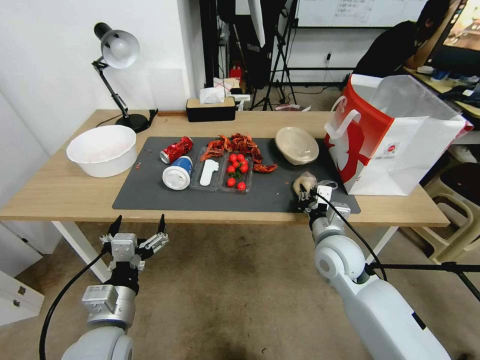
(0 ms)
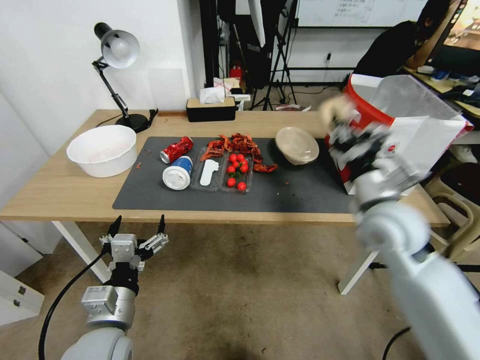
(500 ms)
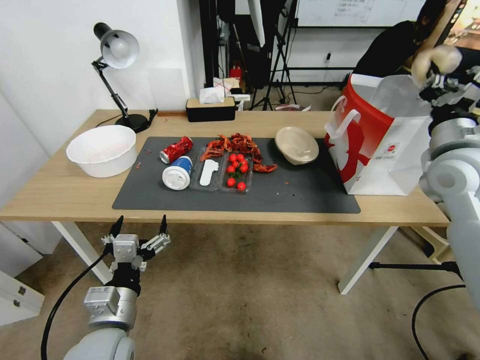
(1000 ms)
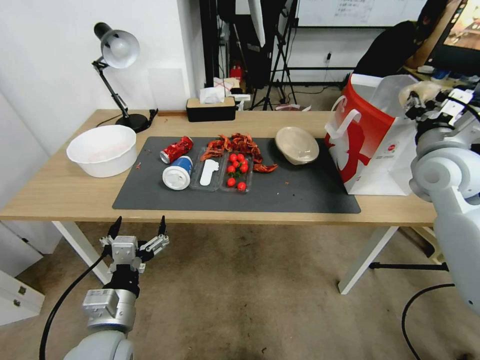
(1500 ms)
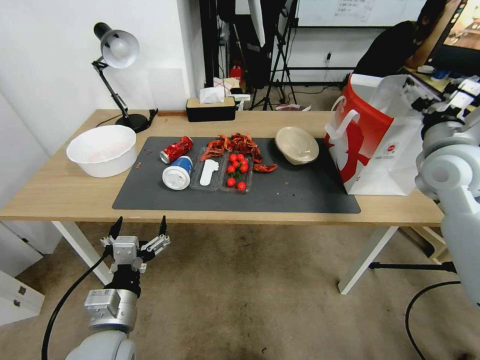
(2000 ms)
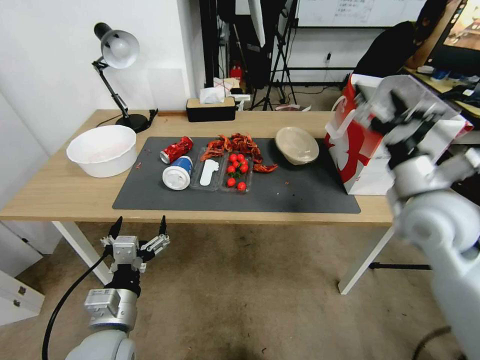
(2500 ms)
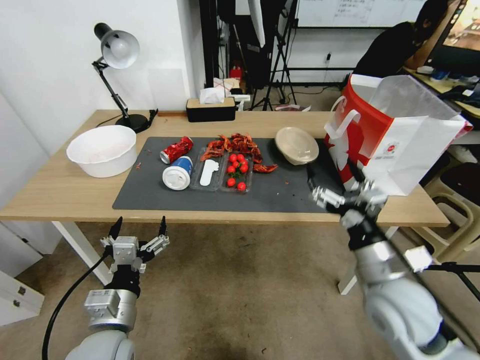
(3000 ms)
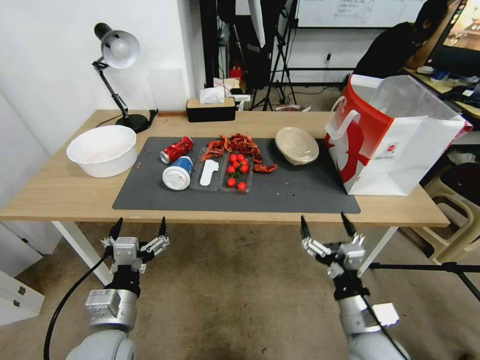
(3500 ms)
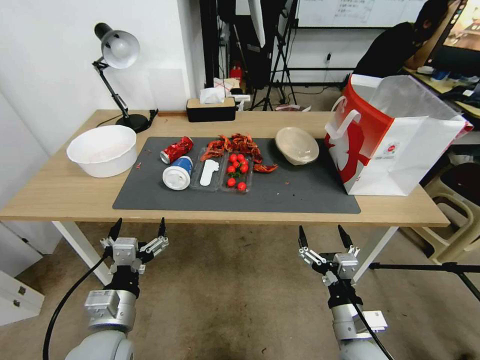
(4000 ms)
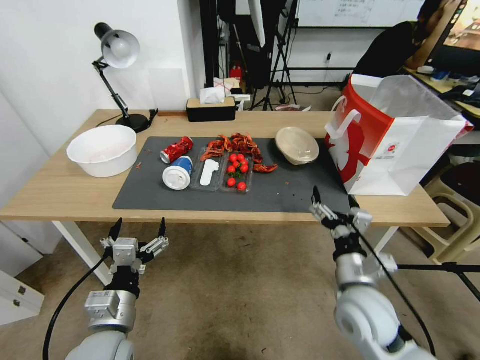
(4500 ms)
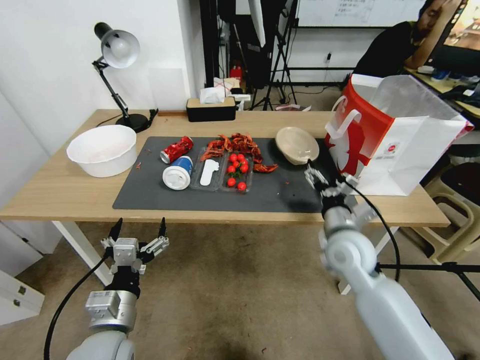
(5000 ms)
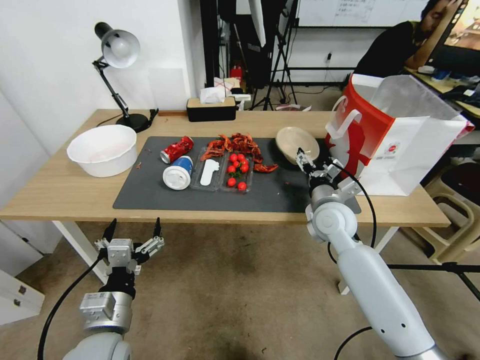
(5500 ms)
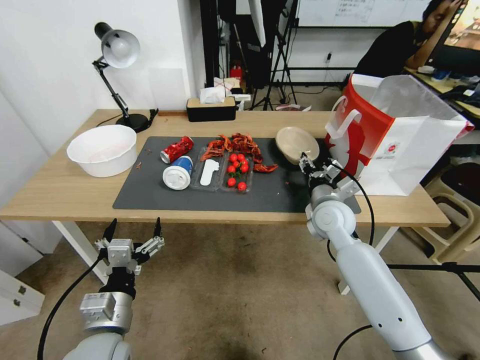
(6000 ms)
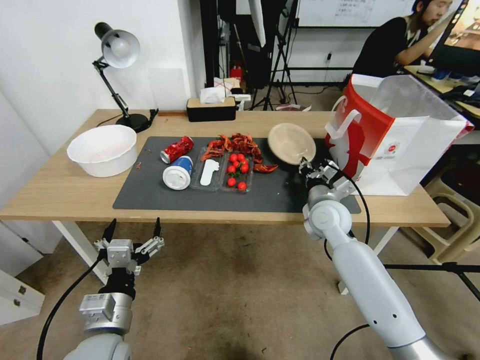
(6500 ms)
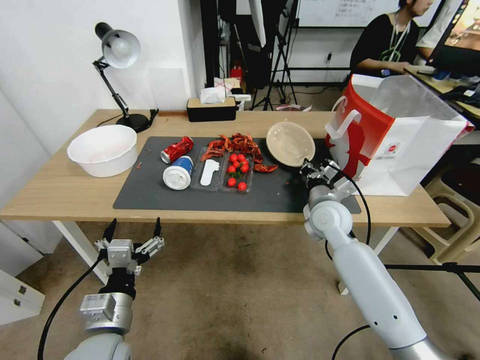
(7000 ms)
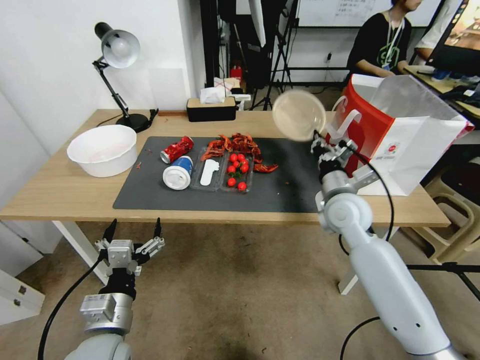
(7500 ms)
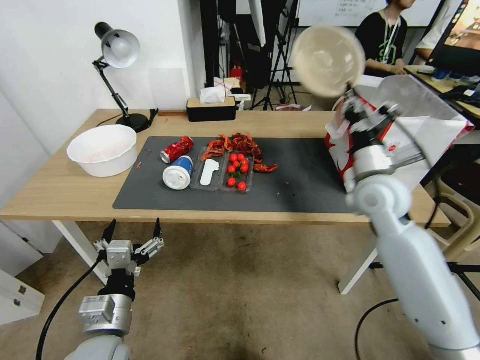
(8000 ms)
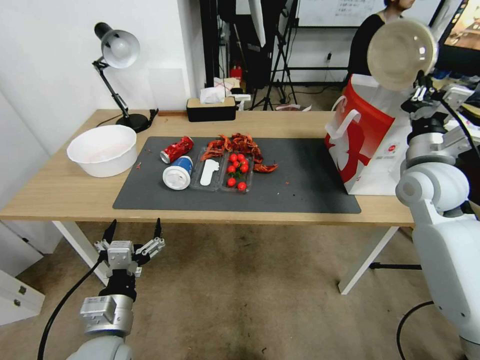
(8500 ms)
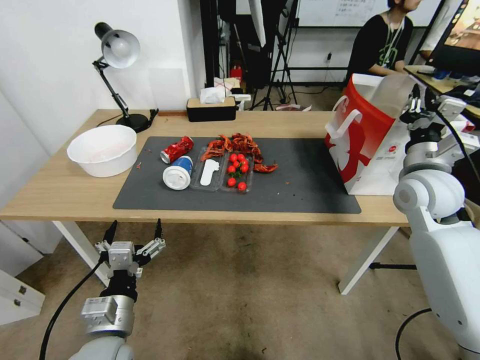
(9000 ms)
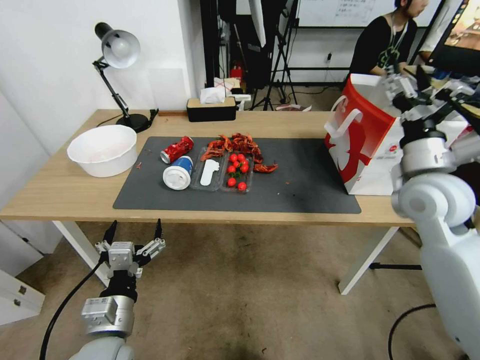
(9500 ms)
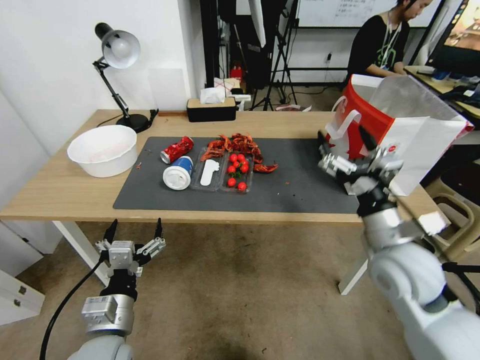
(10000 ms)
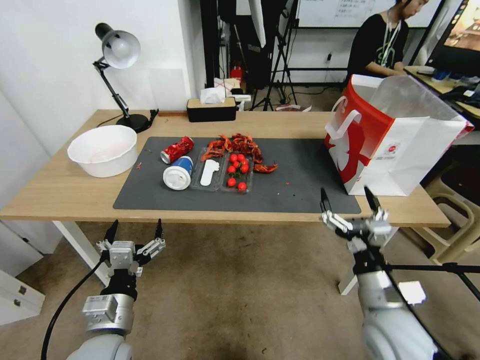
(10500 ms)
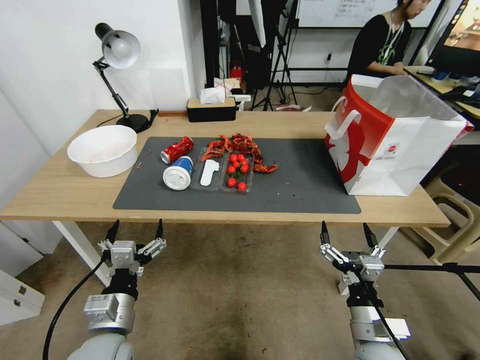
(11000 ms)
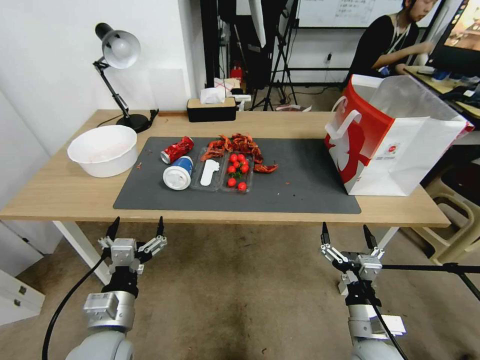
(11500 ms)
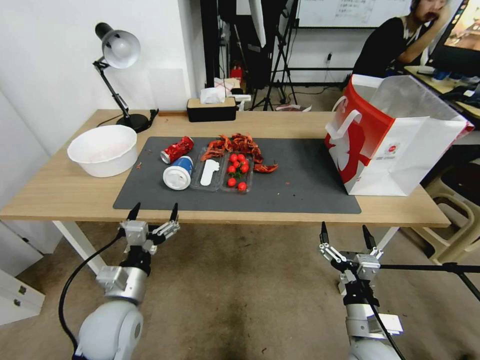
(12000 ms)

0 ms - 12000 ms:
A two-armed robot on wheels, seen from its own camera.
0 ms - 2000 ms: The right gripper travels upward and to the right by some 25 cm, and opens its fingers.
2000 ms - 4000 ms: The right gripper is displaced downward, backward and to the left by approximately 40 cm.
4000 ms - 6000 ms: The right gripper is displaced forward by about 25 cm, and closes its fingers.
6000 ms - 8000 ms: The right gripper shifts about 15 cm upward and to the right, and closes.
8000 ms - 10000 ms: The right gripper shifts some 15 cm backward, and opens up.
10000 ms - 12000 ms: The left gripper shifts roughly 5 cm forward; the right gripper heads downward and backward, covering about 20 cm.

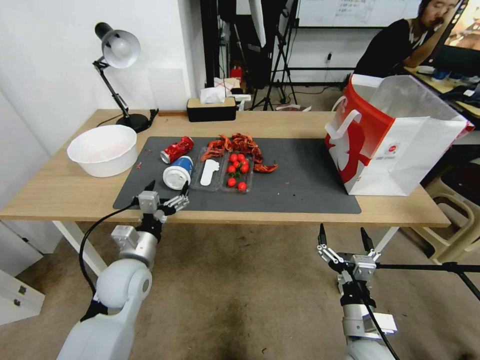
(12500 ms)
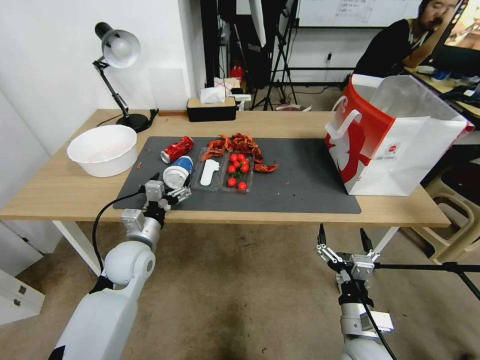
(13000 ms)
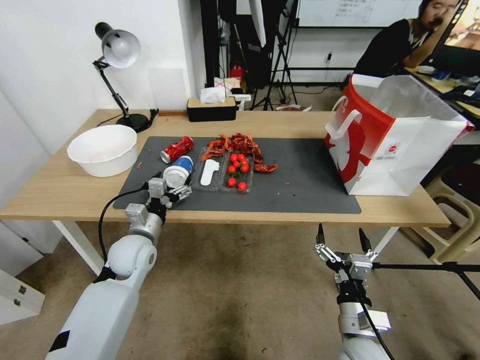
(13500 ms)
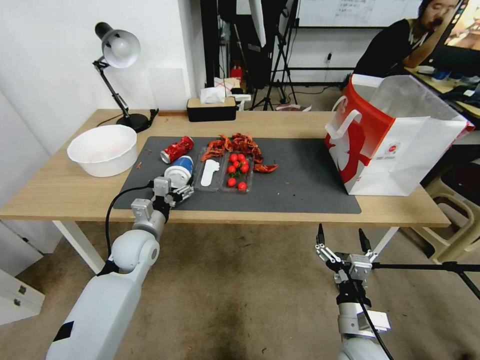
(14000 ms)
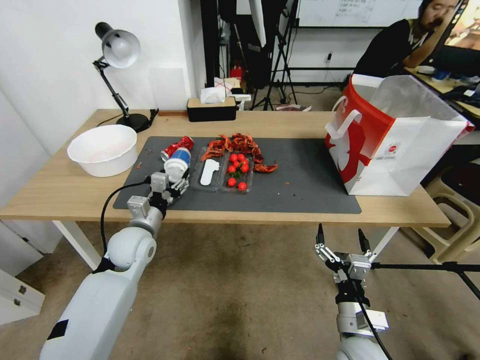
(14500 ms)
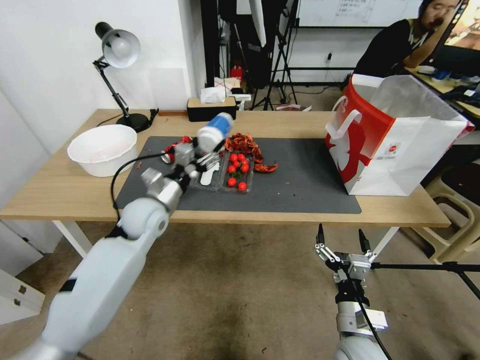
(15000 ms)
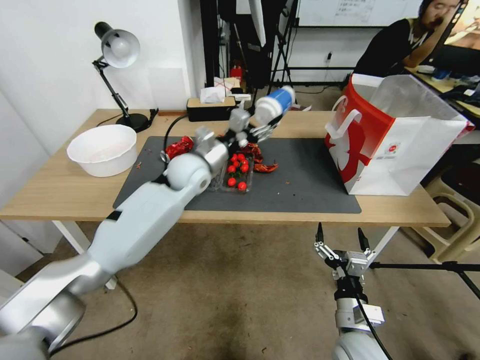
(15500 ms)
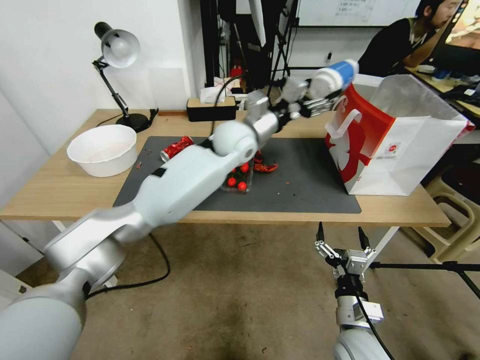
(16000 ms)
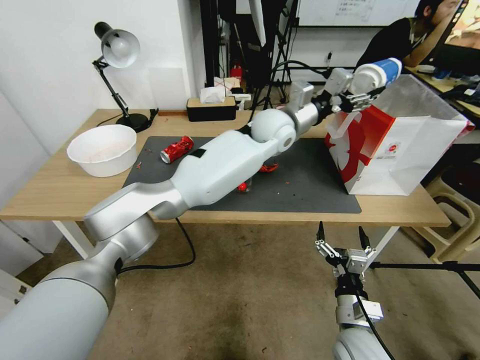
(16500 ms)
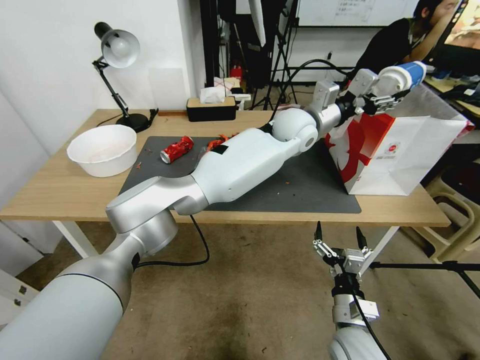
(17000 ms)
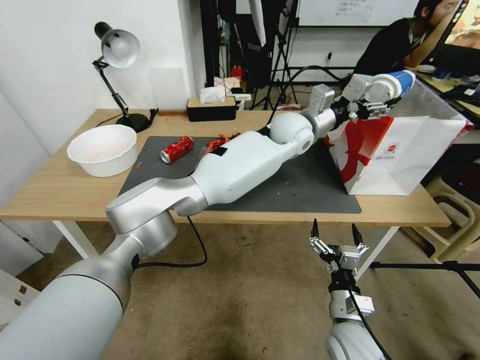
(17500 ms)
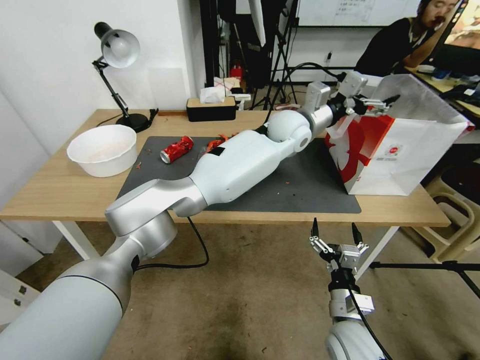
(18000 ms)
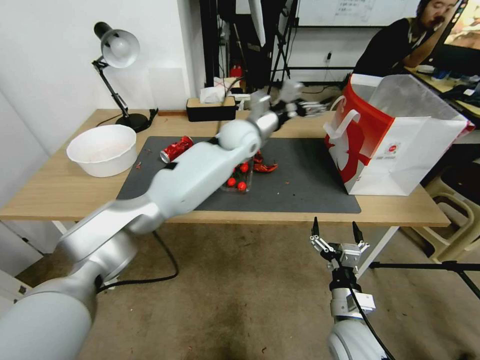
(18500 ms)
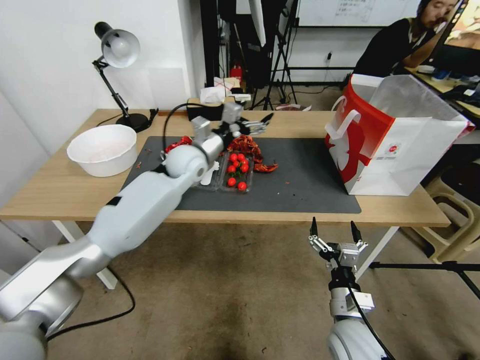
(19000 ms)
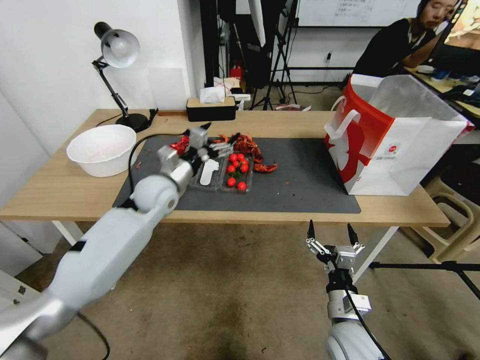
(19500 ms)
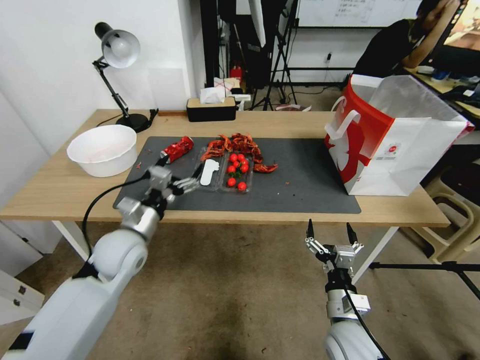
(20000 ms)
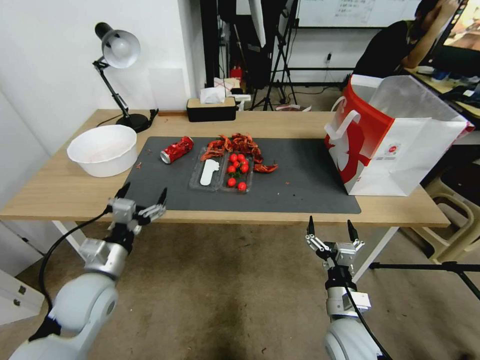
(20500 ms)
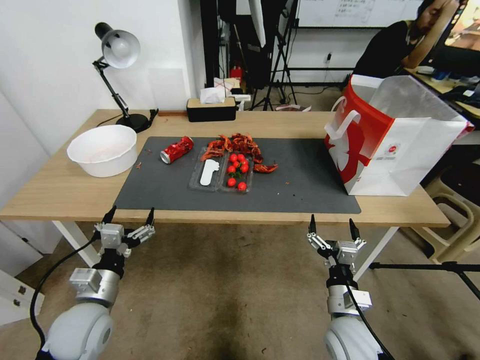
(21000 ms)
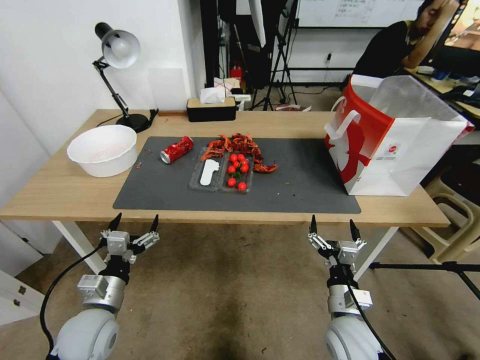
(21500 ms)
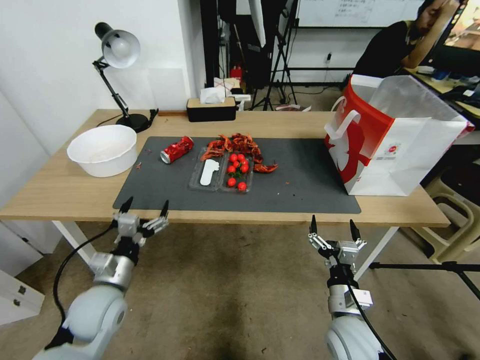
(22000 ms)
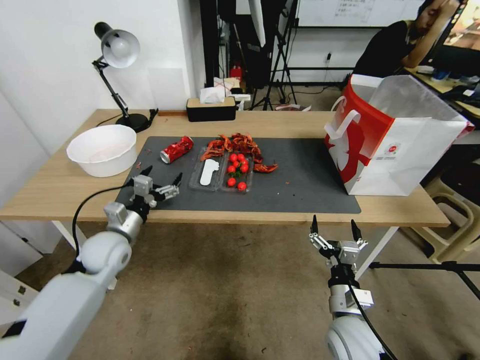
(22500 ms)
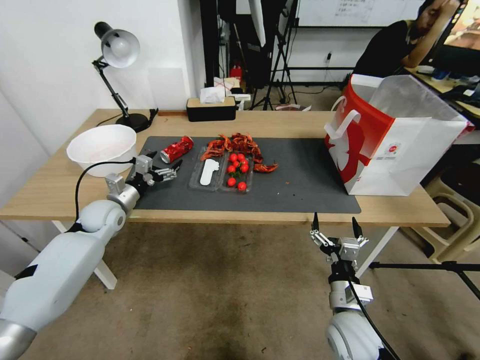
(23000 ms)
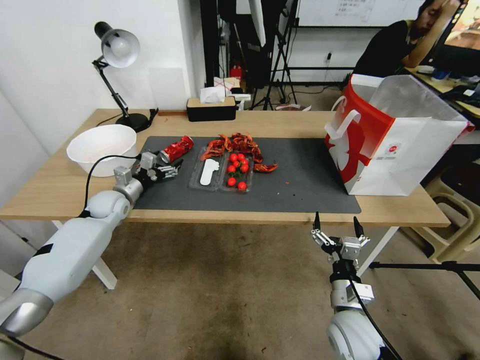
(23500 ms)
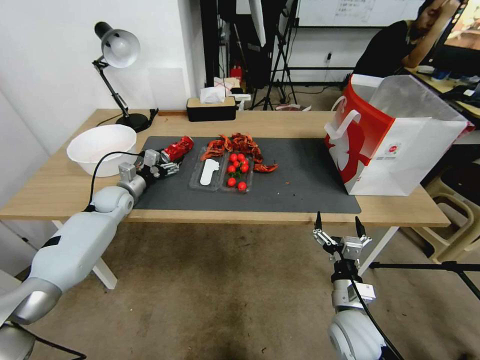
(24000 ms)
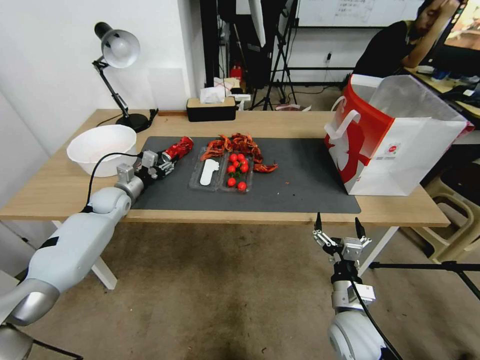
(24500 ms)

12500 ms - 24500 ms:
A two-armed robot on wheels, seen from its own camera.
12500 ms - 14500 ms: The left gripper moves forward, approximately 10 cm, and closes its fingers.
14500 ms - 16500 ms: The left gripper is displaced to the right, upward and forward by approximately 40 cm.
16500 ms - 18500 ms: The left gripper shifts about 5 cm to the left, and opens its fingers.
18500 ms - 20500 ms: The left gripper is displaced backward, to the left and downward by approximately 50 cm.
22500 ms - 24500 ms: The left gripper is displaced forward by roughly 25 cm, and closes.

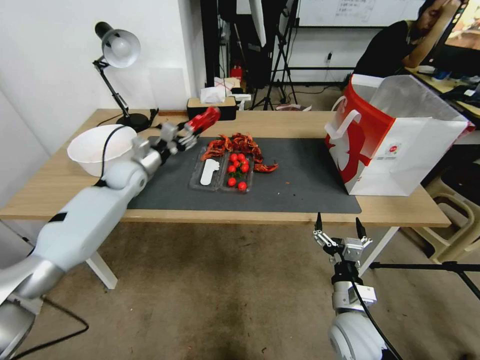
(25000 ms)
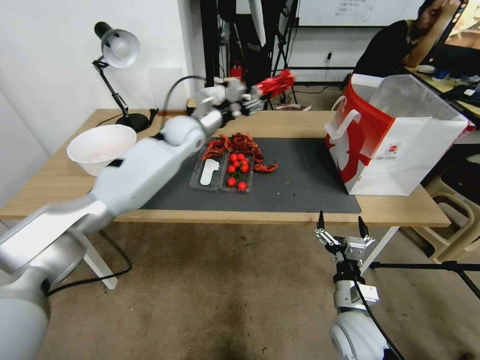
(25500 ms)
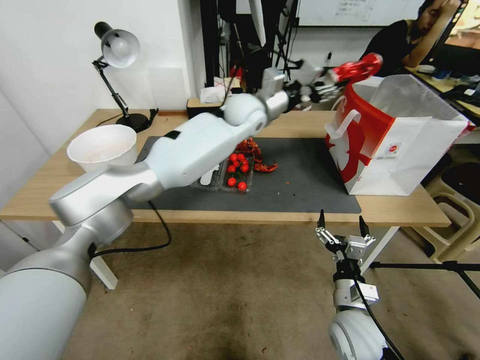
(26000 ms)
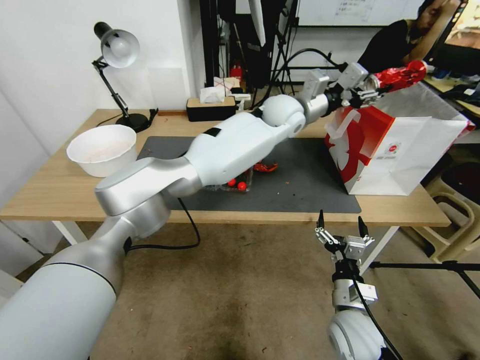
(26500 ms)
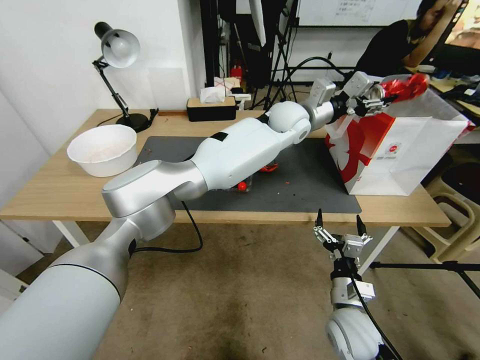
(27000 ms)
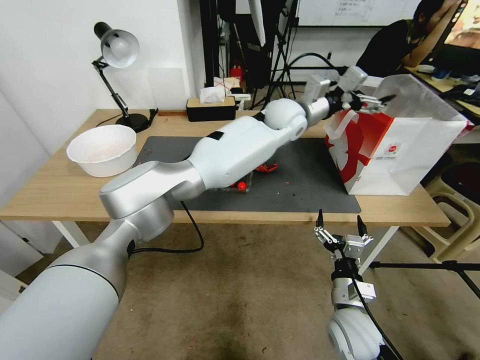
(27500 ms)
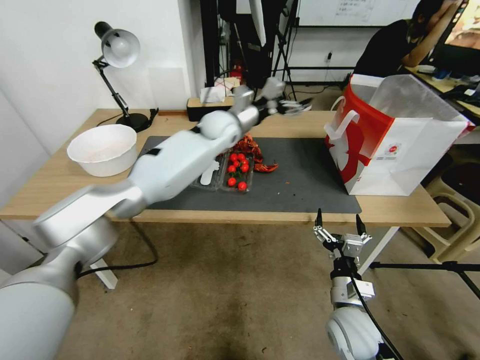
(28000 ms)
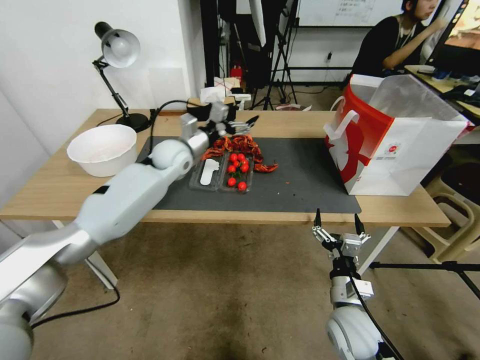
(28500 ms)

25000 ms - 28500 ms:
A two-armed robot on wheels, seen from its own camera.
25000 ms - 27000 ms: The left gripper travels to the right and upward by roughly 50 cm.
27000 ms - 28500 ms: The left gripper shifts some 20 cm to the left, and opens up.
